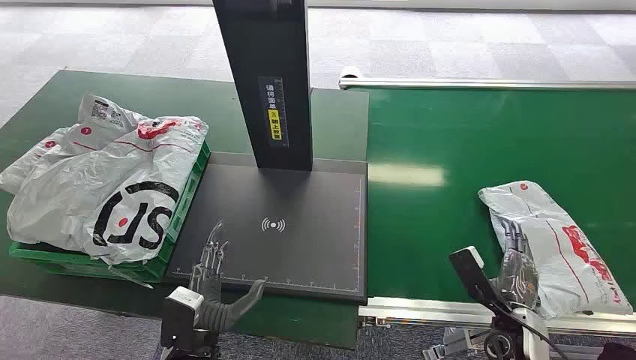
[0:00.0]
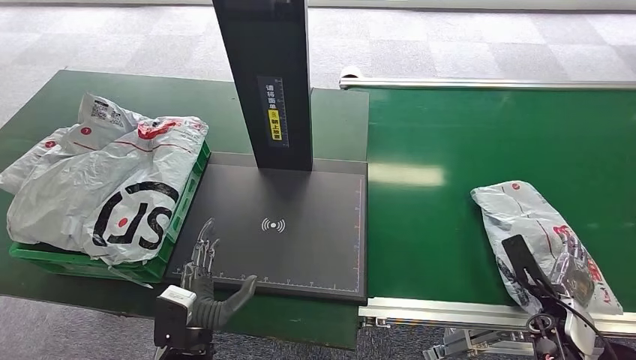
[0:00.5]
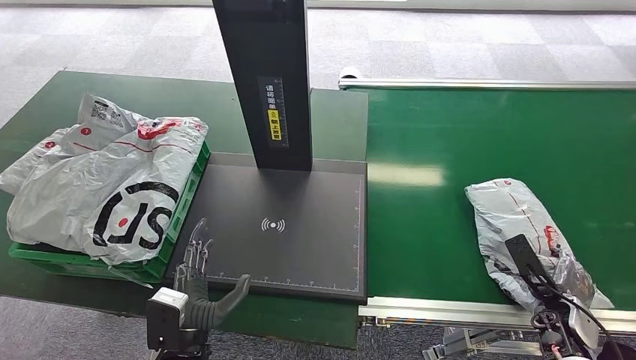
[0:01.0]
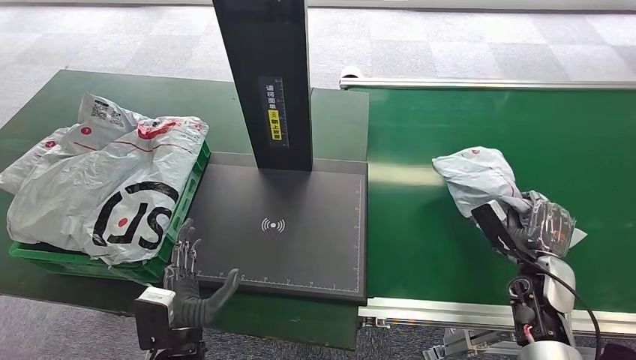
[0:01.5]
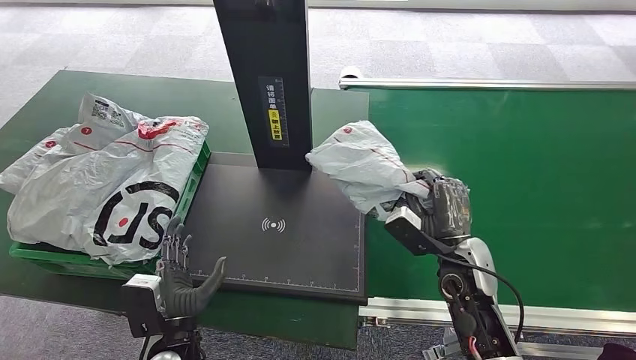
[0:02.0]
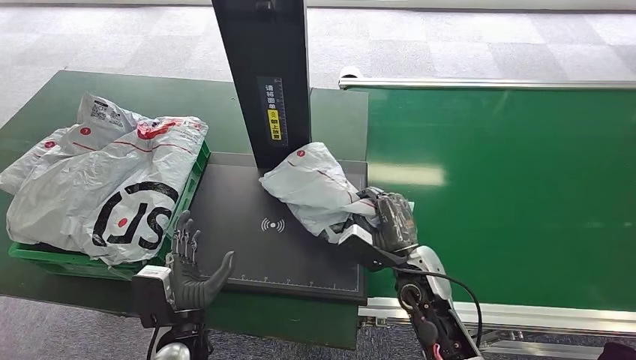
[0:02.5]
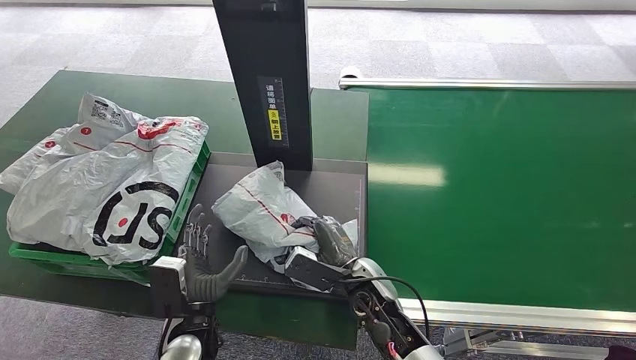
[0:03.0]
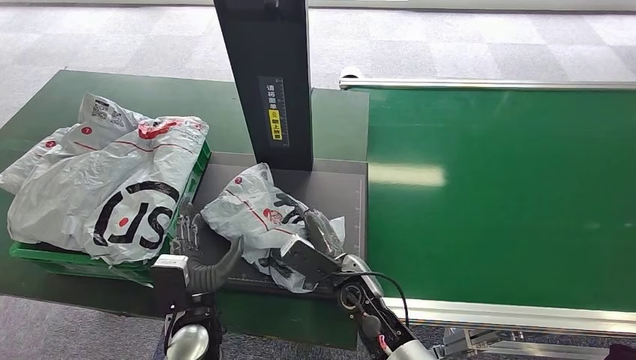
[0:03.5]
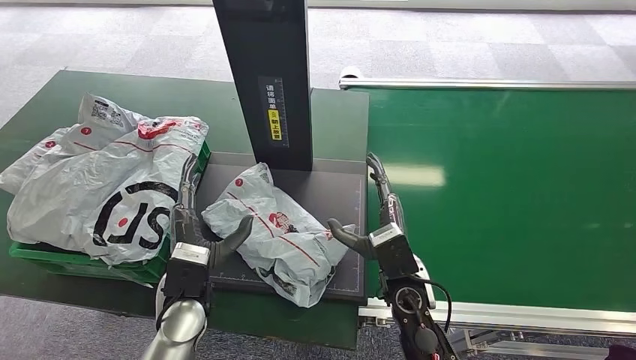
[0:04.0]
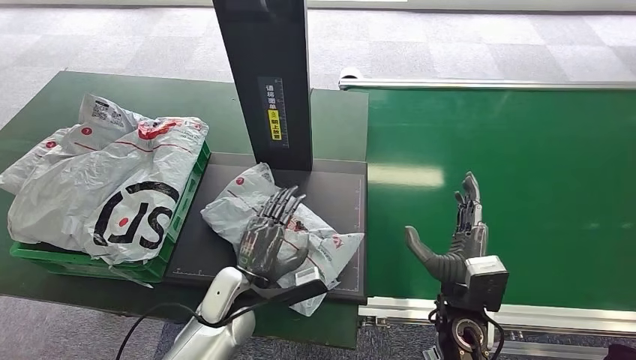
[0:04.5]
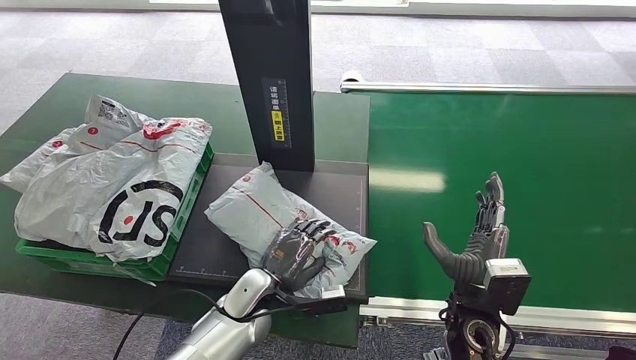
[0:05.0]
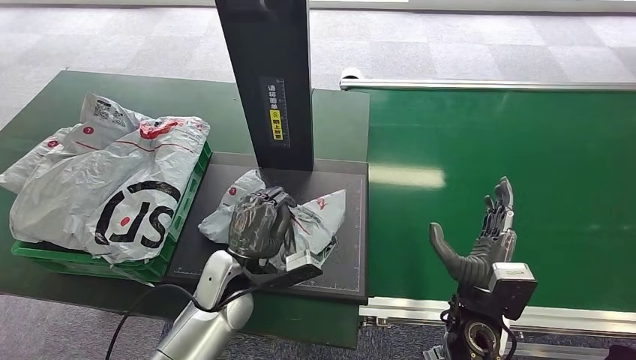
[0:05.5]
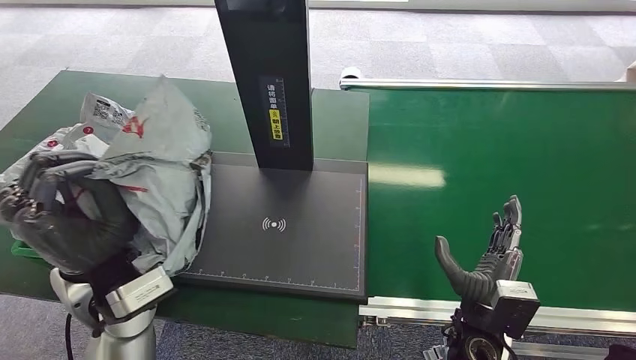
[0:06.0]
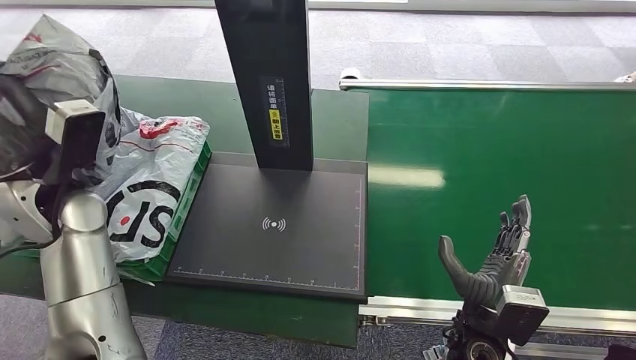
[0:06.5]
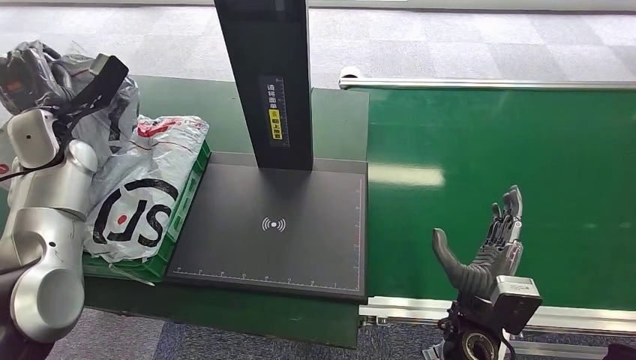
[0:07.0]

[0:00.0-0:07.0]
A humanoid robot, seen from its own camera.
Step, 0:00.0 to 0:01.5: Pick up the package from the conveyor belt.
Step, 0:02.0 to 0:03.5: Place the package onto the inbound machine.
Step, 0:04.0 to 0:05.5: Pick up the package from the inbound machine.
Step, 0:06.0 to 0:07.0: Place the package into the parcel locker.
0:02.0 to 0:03.5: The right hand shifts roughly 20 cm to the left.
